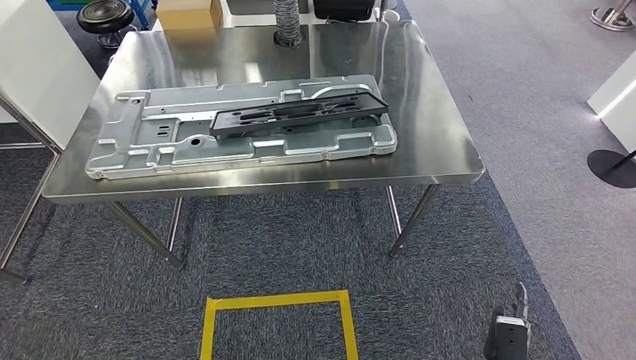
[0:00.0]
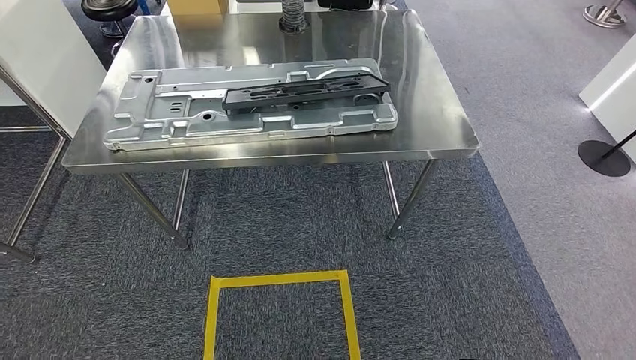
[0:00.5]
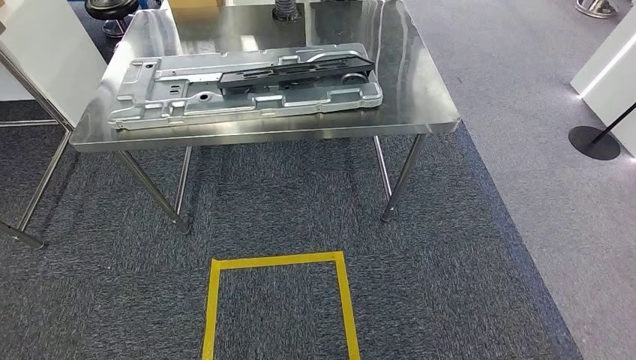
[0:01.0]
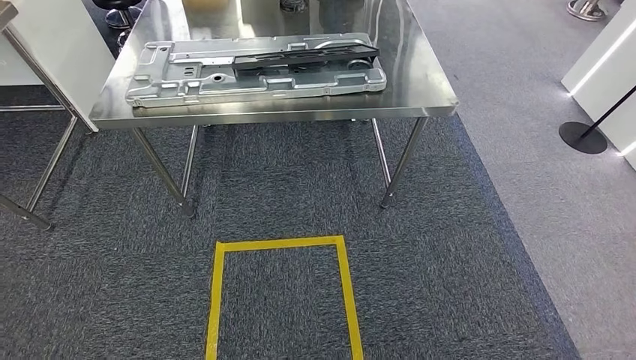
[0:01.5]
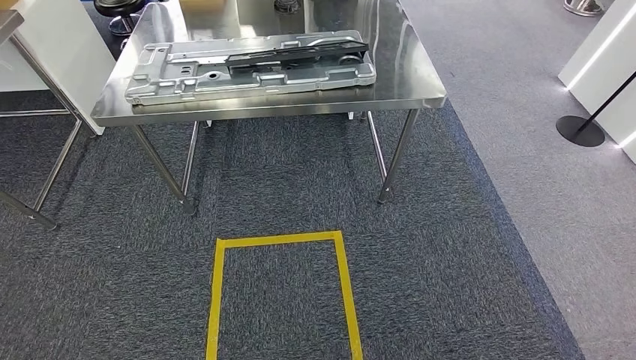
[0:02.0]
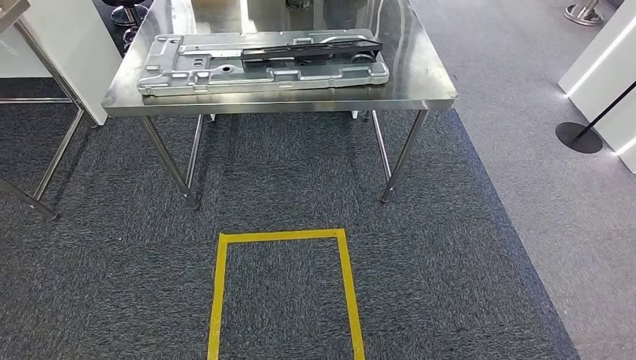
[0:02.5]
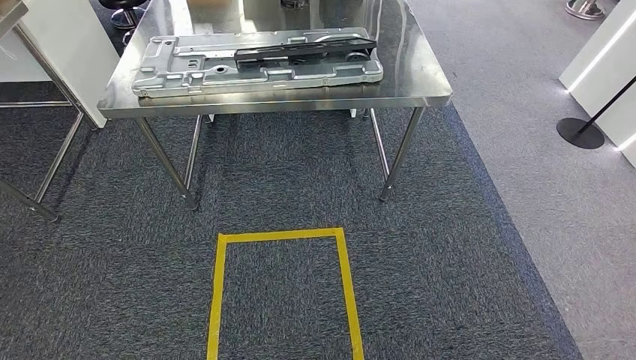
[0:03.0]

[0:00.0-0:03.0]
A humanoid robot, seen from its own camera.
Step, 0:00.0 to 0:03.0: Return to the initial position at the workbench.
0:01.5 to 0:03.0: There are only small adjustments of the hands.

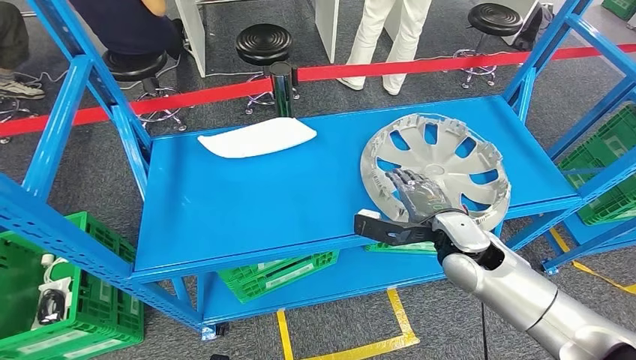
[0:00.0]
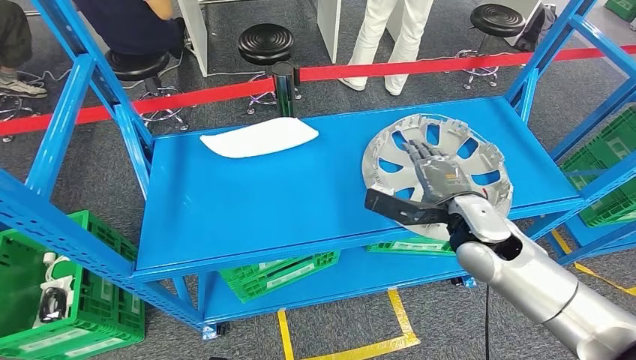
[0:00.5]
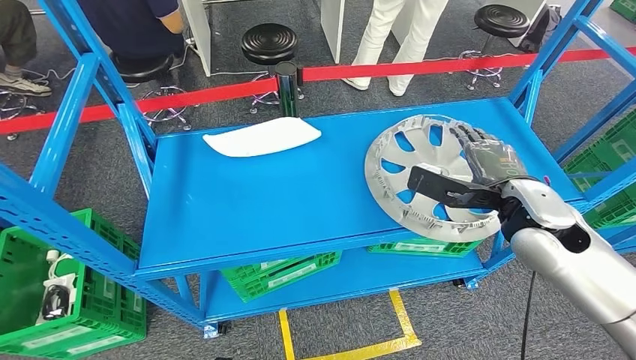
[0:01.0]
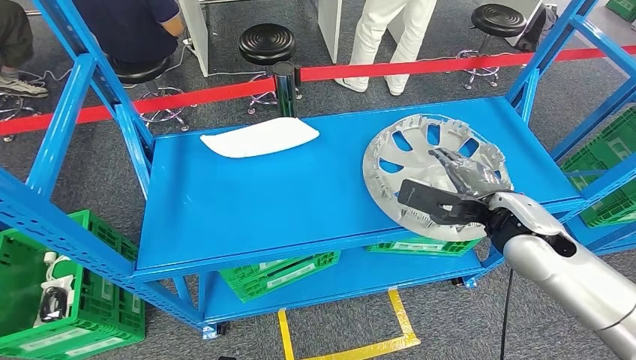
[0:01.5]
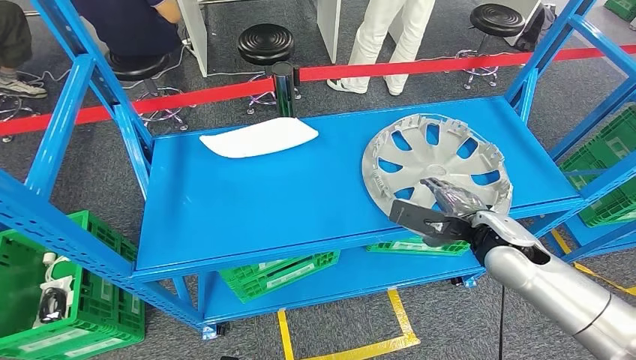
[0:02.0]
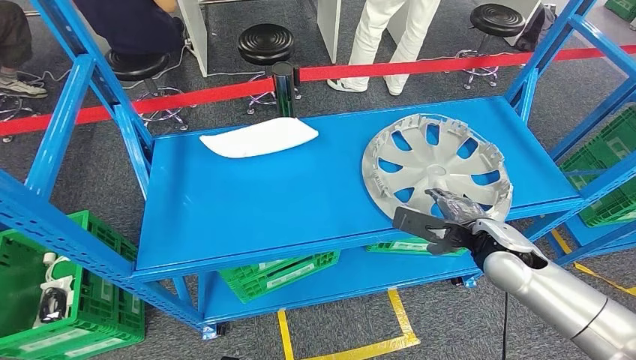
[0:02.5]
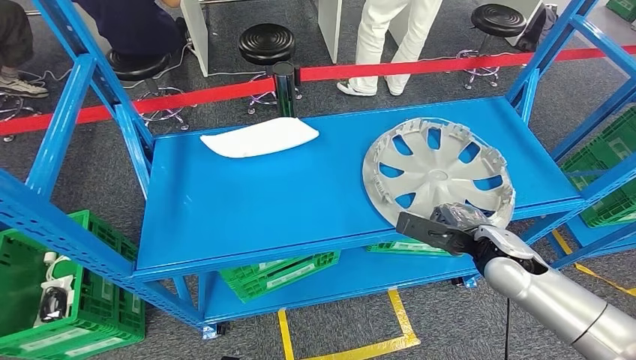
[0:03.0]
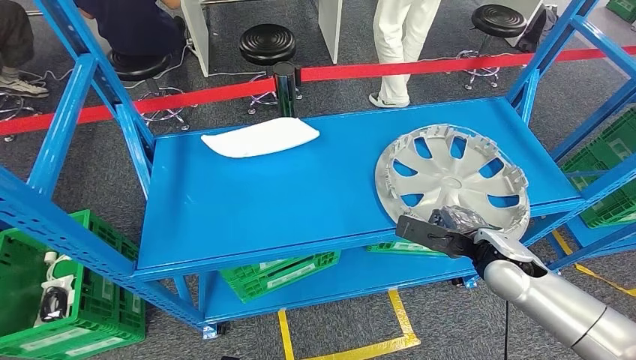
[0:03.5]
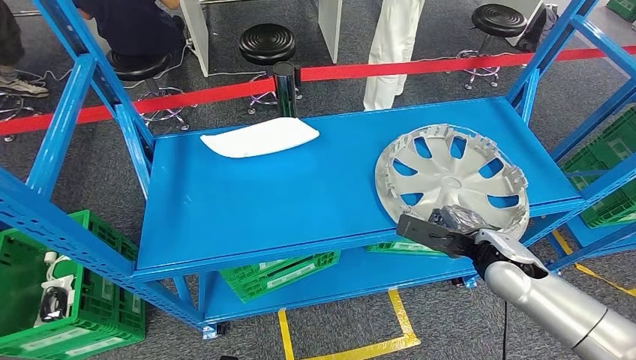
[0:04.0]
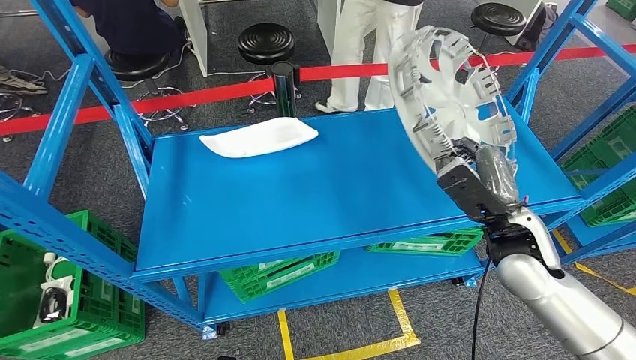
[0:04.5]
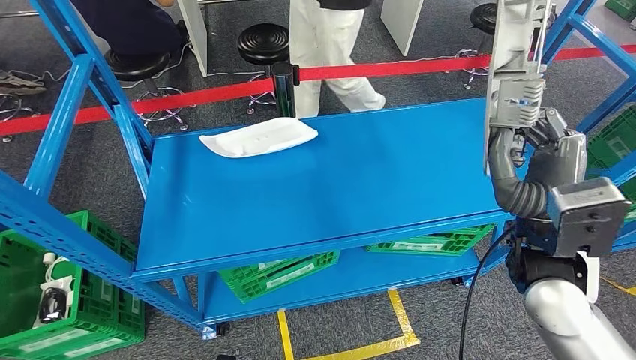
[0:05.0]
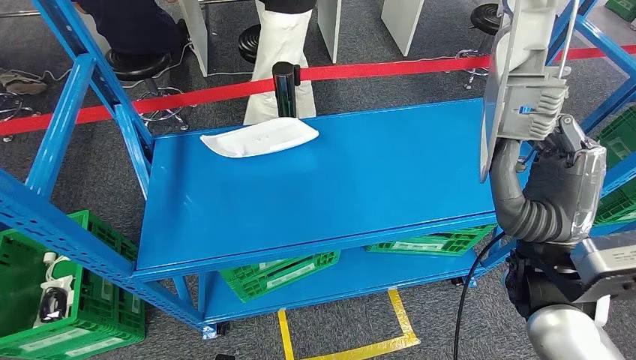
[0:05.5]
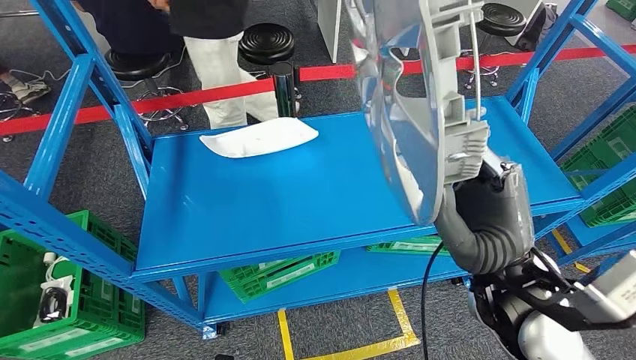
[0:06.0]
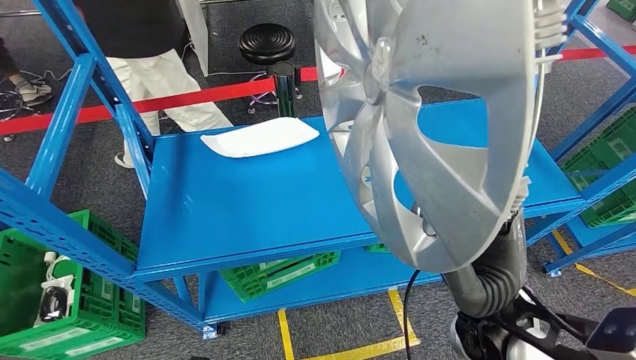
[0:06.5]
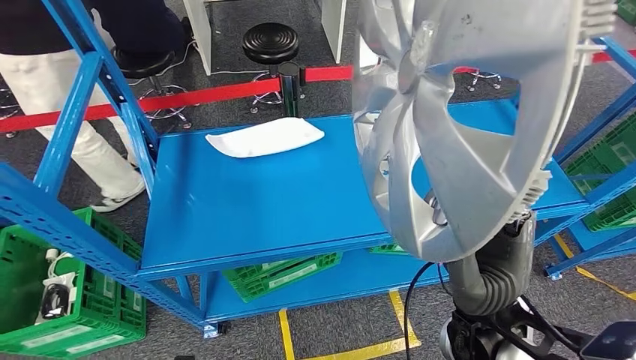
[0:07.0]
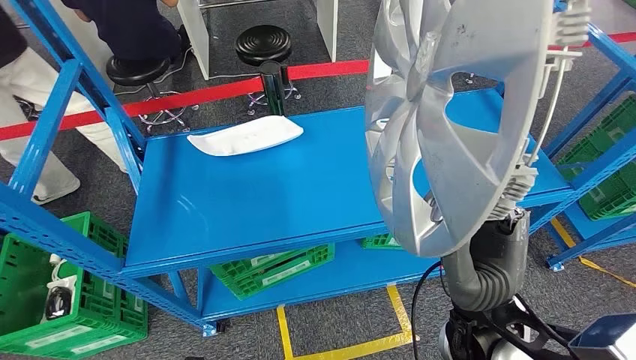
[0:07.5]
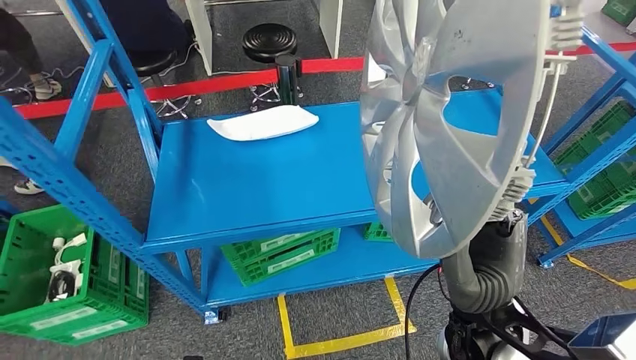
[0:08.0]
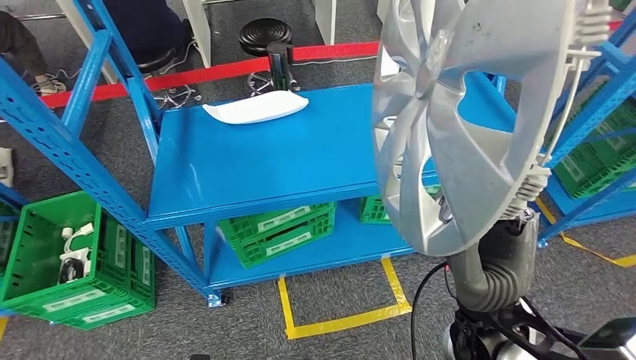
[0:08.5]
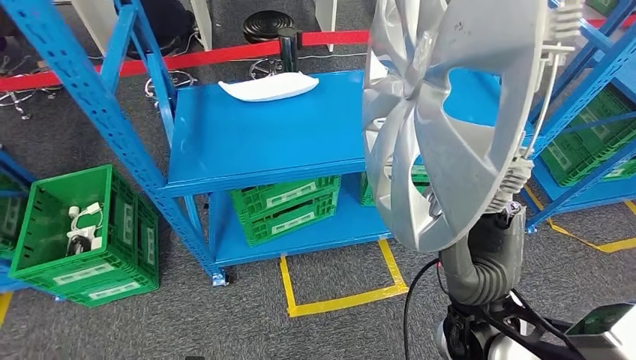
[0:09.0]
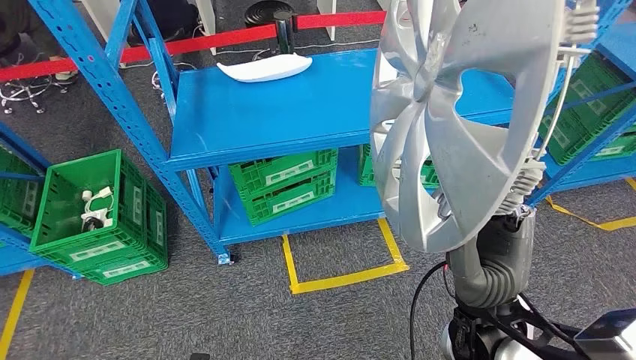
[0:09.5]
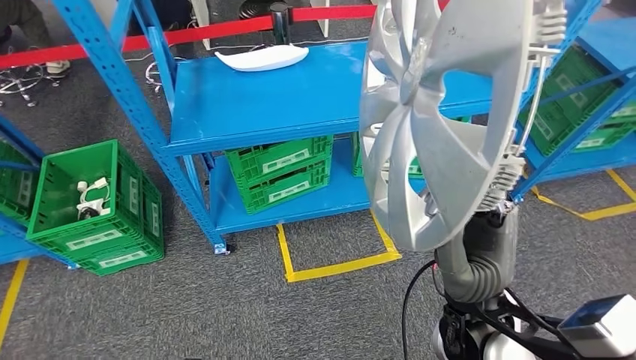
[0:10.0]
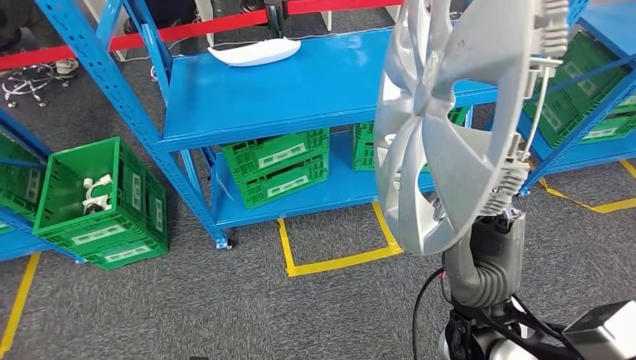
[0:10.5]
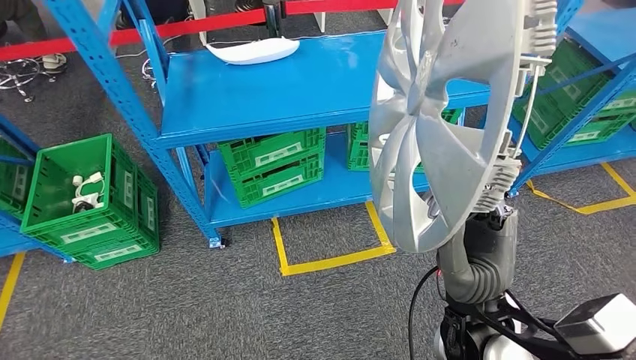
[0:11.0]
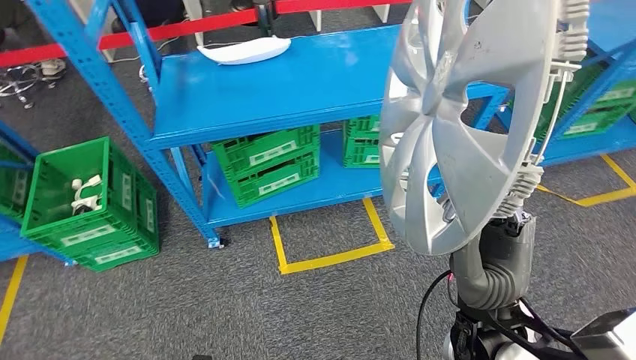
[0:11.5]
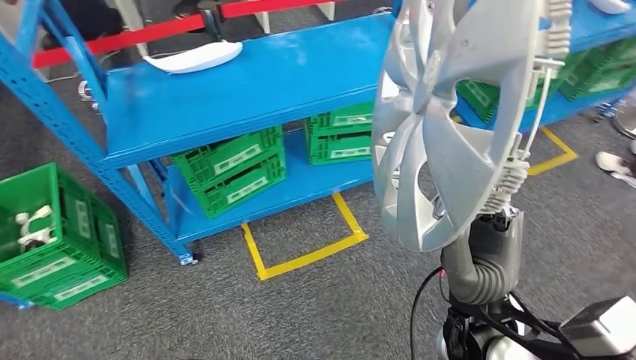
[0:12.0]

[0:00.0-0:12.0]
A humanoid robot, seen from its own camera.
Step, 0:00.0 to 0:05.5: Pick up the small component from the shelf.
0:00.0 to 0:02.0: The right hand heads to the right, covering roughly 5 cm, and reaches some 10 cm upward, then returns.

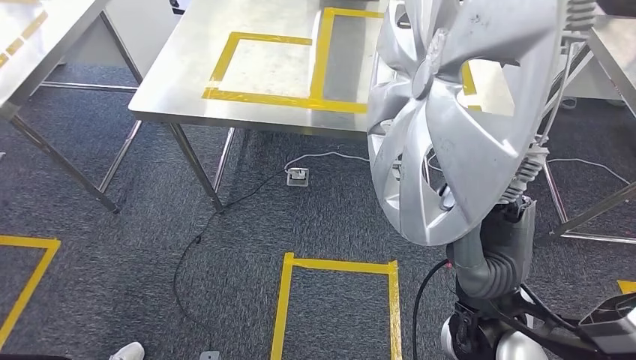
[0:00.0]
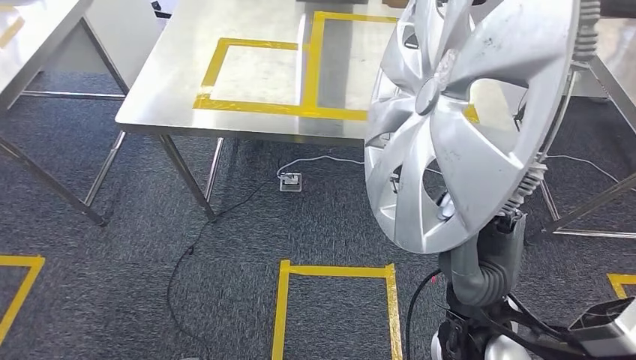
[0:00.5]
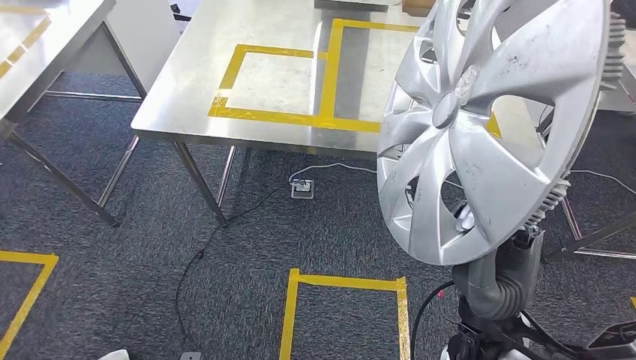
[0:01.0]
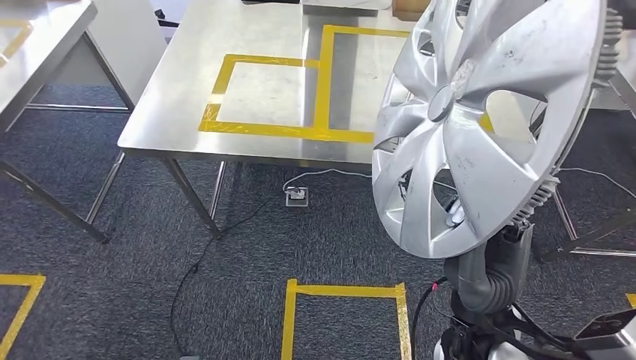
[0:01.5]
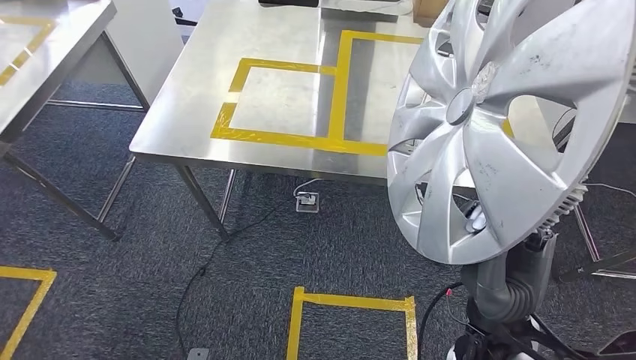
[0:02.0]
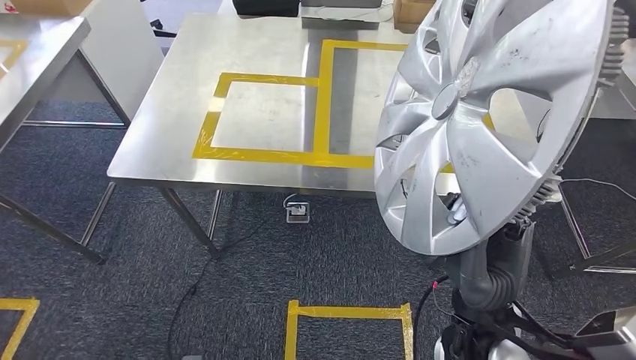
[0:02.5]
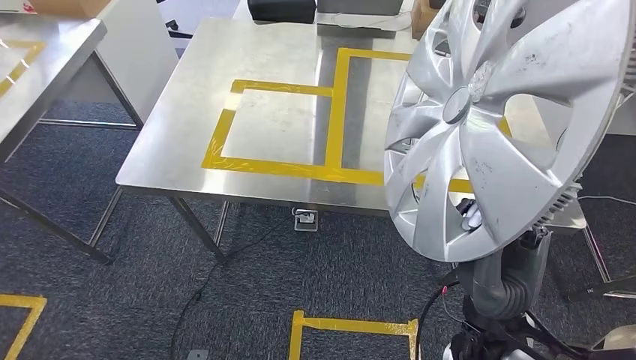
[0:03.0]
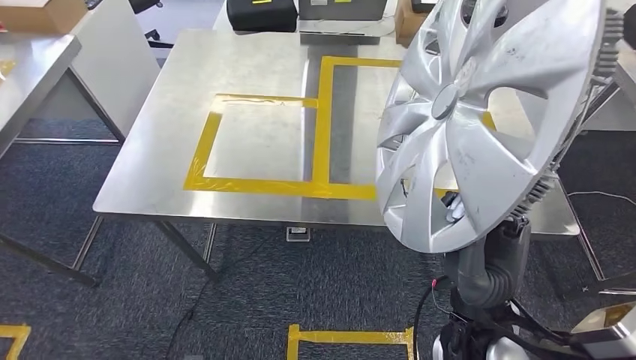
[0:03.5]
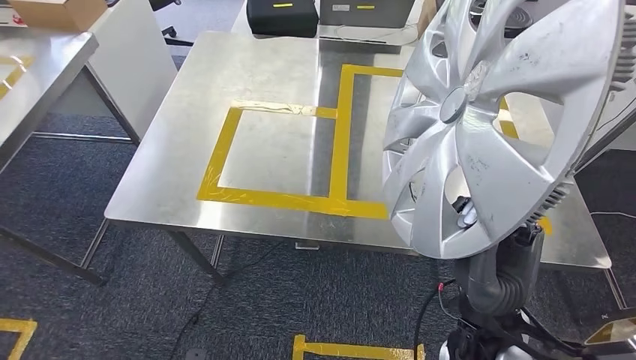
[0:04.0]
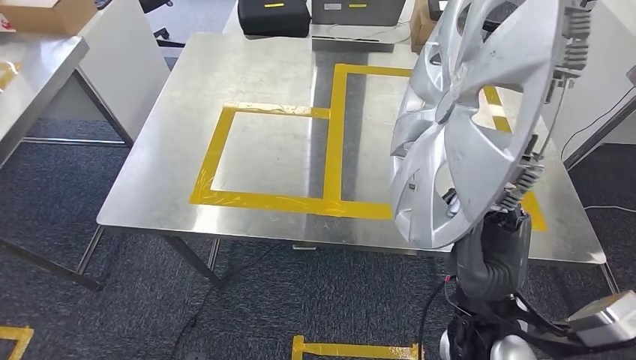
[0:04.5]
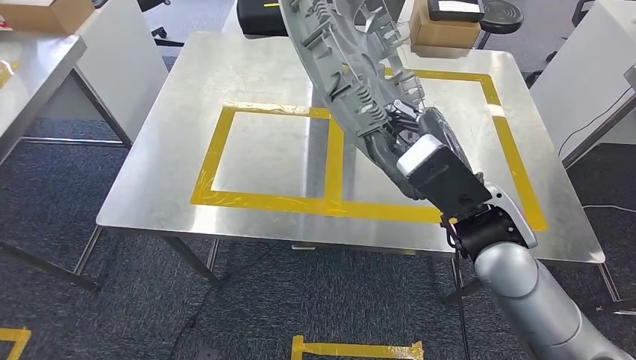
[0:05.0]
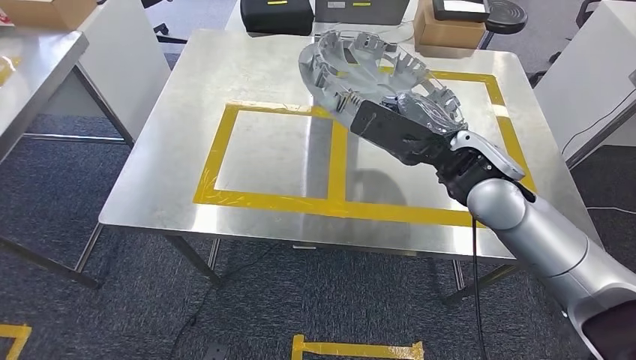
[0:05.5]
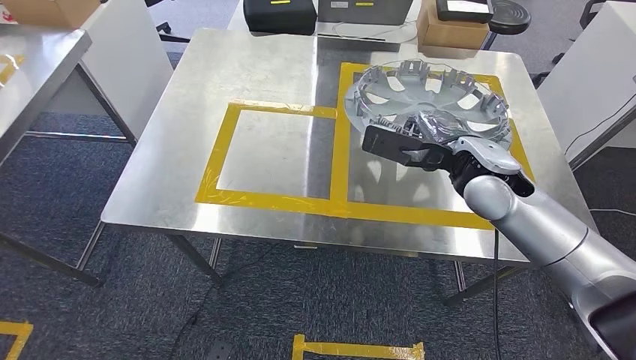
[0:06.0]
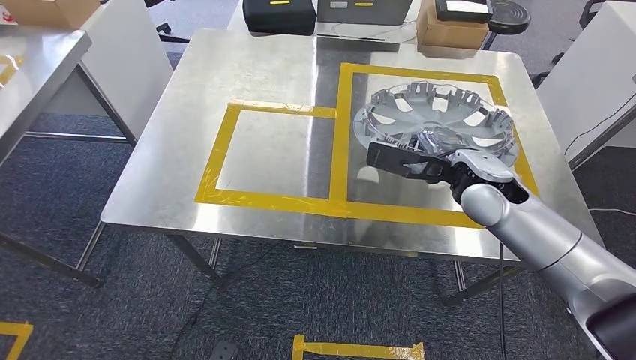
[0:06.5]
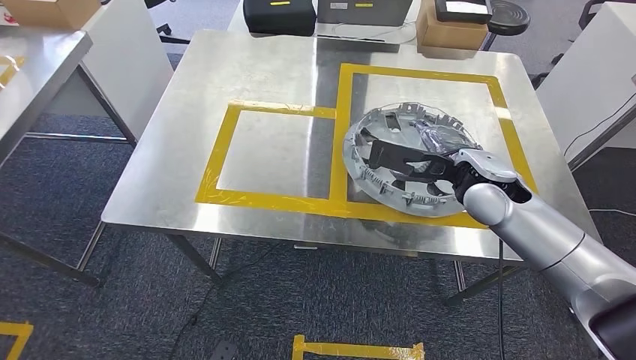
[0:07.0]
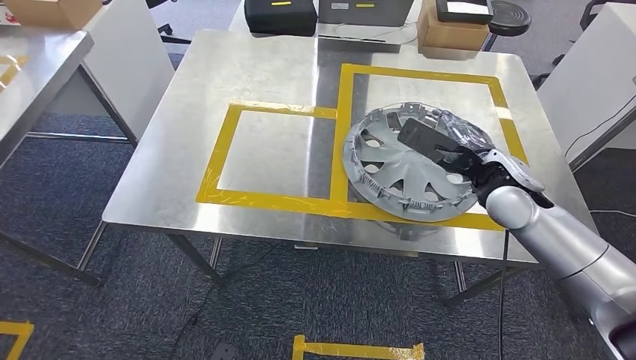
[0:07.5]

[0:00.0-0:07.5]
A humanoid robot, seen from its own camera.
Step, 0:00.0 to 0:04.5: Move the small component to the workbench.
0:05.5 to 0:07.5: The right hand moves to the right and downward, about 10 cm.
